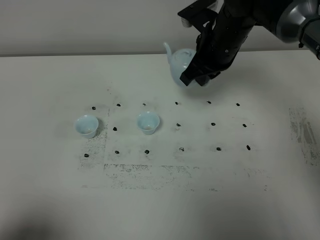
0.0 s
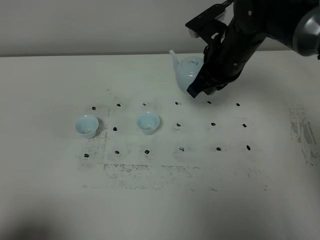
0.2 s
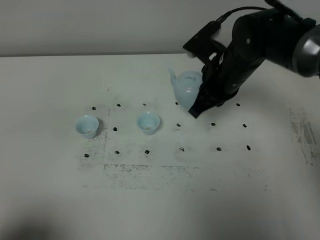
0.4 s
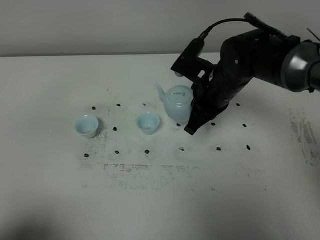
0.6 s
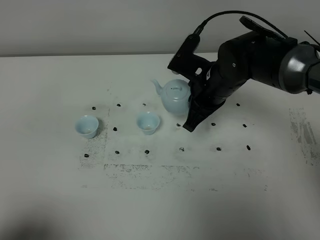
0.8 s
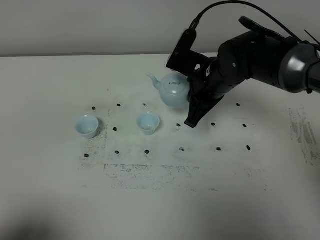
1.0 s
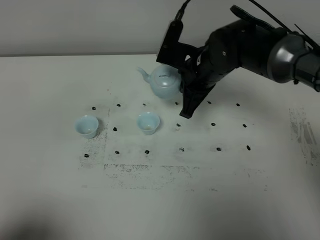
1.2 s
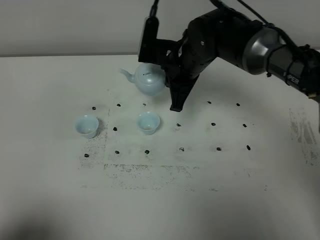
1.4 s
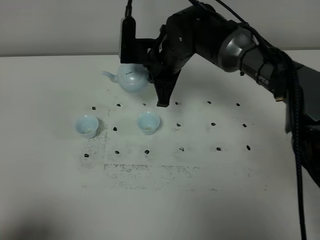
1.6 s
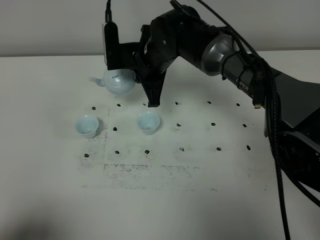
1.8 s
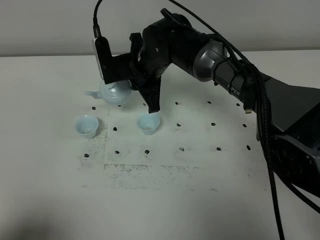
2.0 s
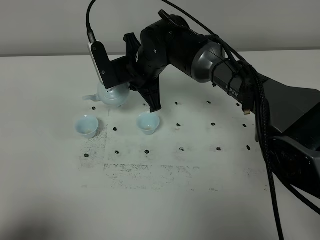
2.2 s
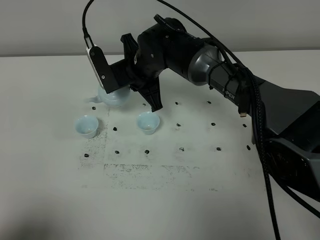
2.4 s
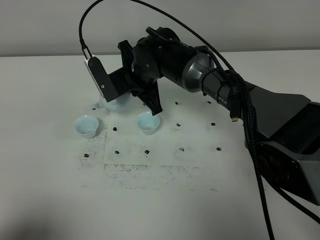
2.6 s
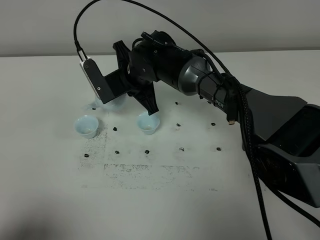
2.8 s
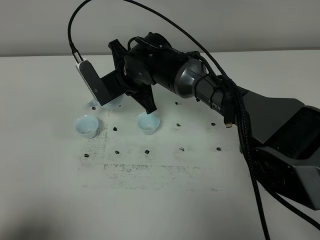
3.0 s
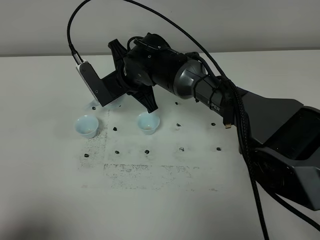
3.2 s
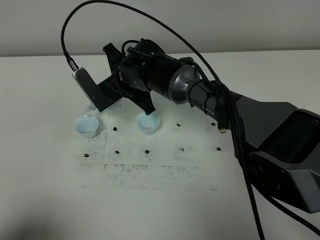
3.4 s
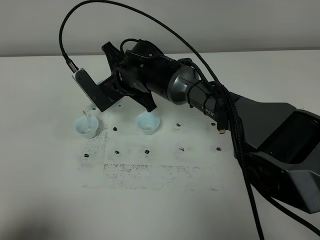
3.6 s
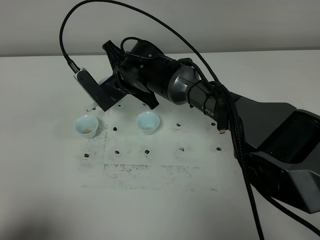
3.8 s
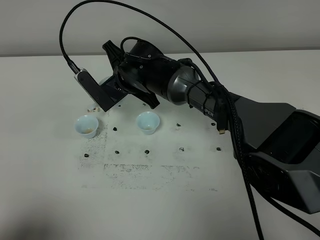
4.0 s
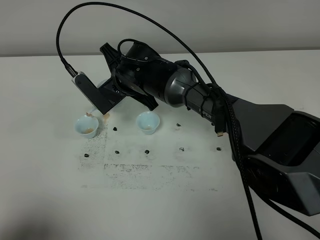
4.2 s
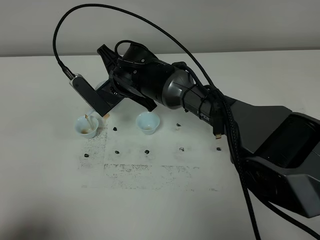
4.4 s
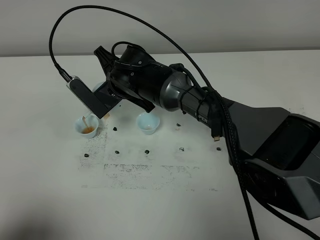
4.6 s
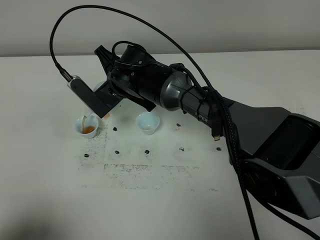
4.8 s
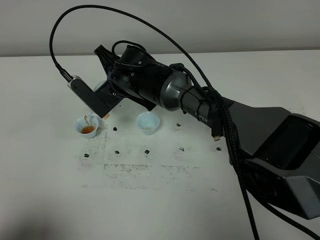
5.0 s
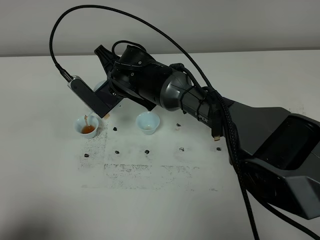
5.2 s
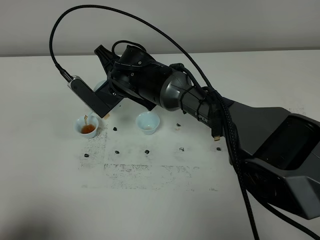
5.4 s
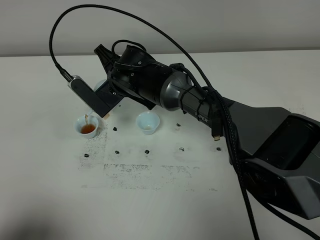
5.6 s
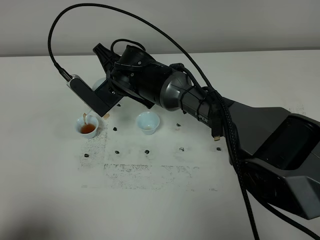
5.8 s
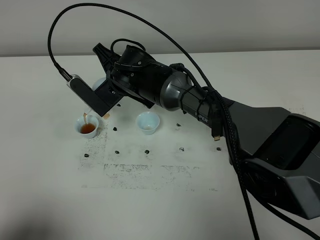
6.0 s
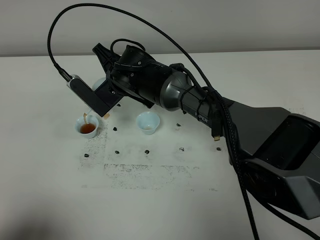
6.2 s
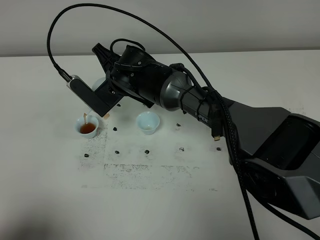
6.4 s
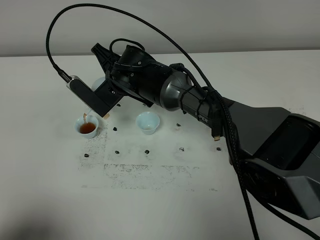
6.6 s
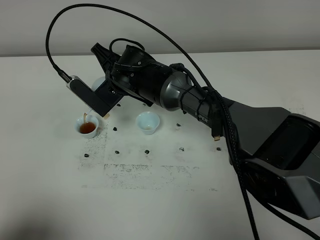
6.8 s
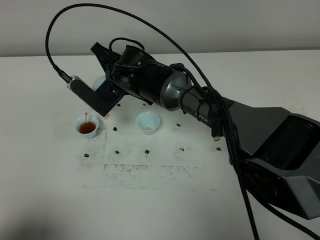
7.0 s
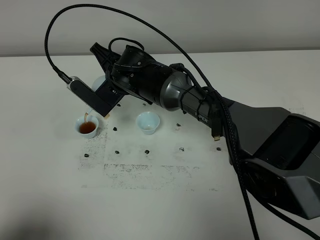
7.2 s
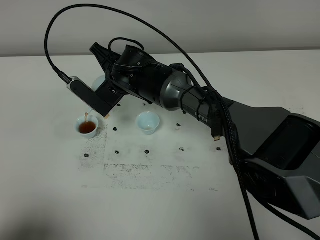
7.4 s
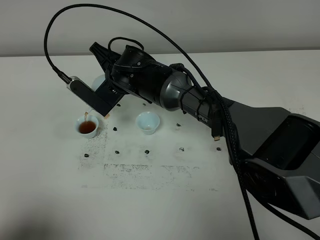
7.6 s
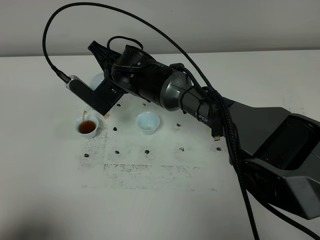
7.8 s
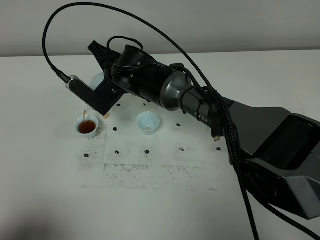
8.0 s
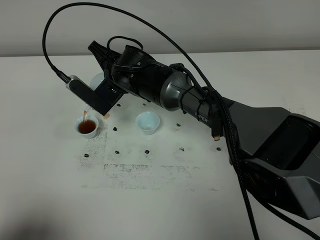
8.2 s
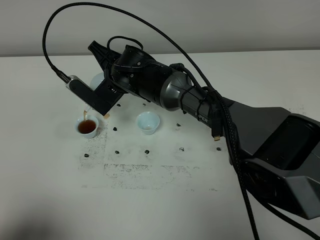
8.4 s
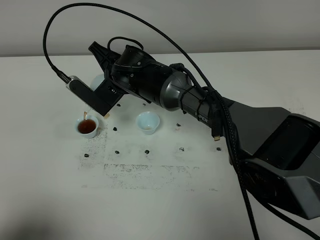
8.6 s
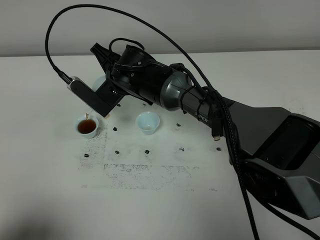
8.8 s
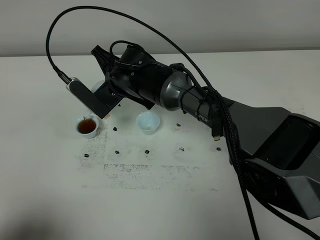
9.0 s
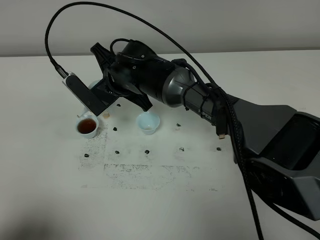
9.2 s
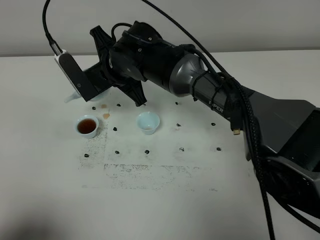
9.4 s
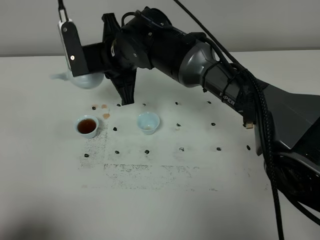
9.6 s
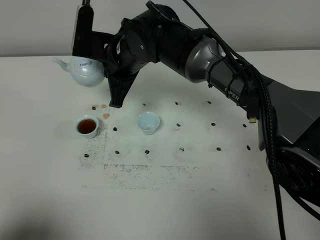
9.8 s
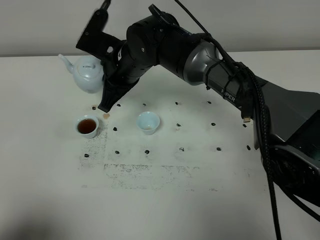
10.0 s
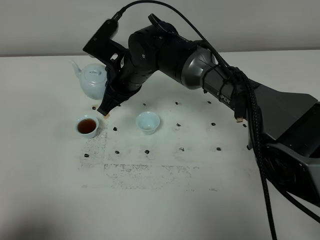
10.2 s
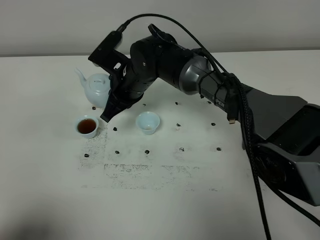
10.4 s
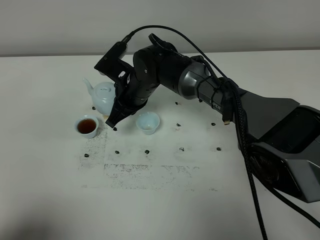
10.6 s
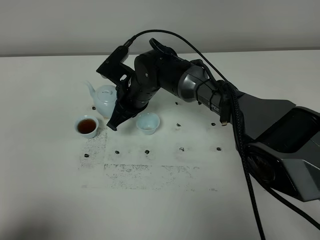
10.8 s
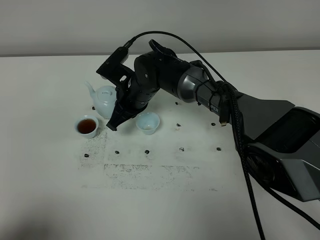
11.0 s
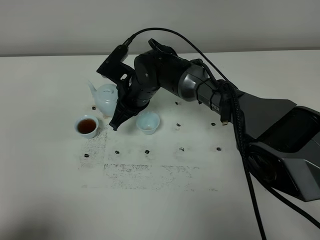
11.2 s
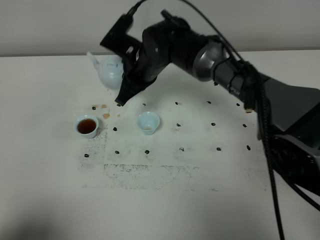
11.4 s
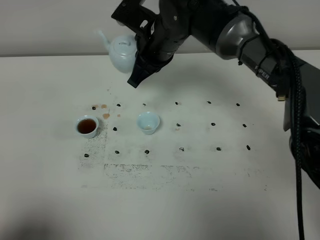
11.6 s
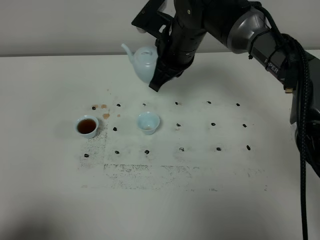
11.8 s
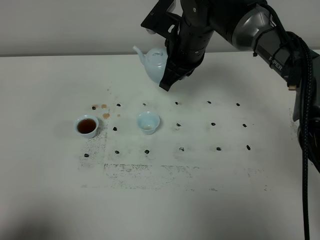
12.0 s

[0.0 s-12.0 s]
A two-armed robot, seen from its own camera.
Task of the whole recording: grasp the blue porcelain teapot and pour the tea into the two blue porcelain teacups one by one, put the blue porcelain teapot back in its original place.
0.0 to 1.6 s: The right gripper goes about 10 cm to the left.
1.6 to 3.0 s: The right gripper goes about 5 cm to the left.
3.0 to 4.4 s: There are only small adjustments of the grippers.
4.4 to 6.0 s: The two grippers keep their place.
6.0 to 9.0 s: The grippers move only a little.
9.0 to 10.4 s: The right gripper moves roughly 5 cm upward and comes back.
10.4 to 12.0 s: The right gripper heads to the right and upward, covering some 15 cm.

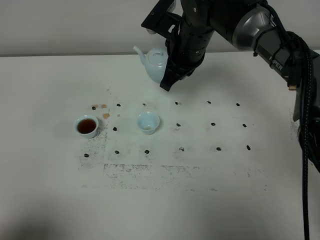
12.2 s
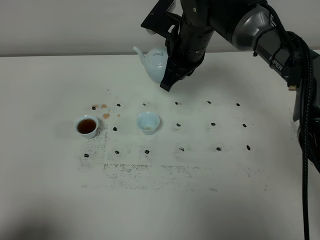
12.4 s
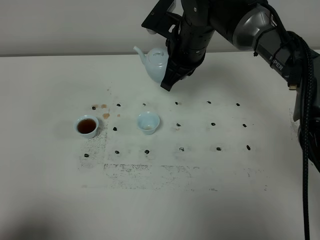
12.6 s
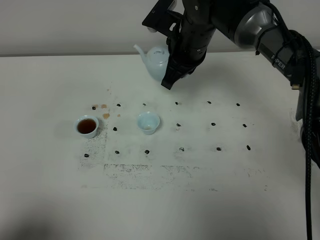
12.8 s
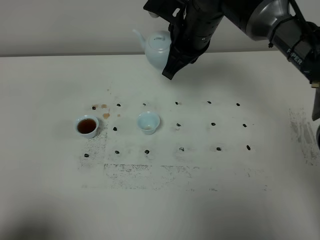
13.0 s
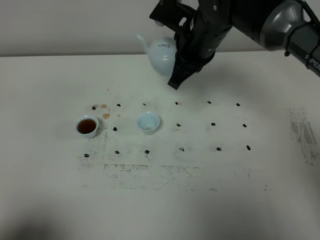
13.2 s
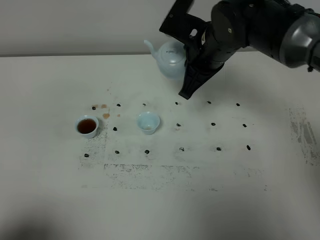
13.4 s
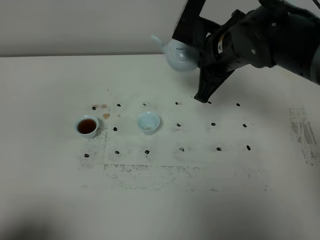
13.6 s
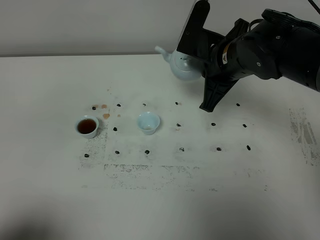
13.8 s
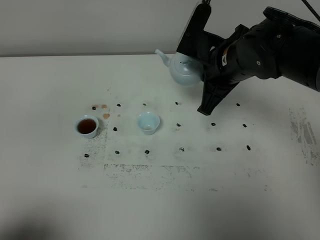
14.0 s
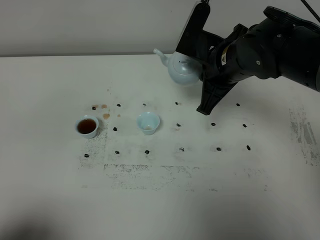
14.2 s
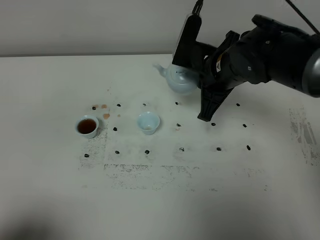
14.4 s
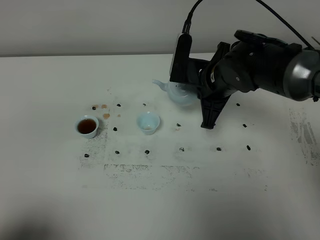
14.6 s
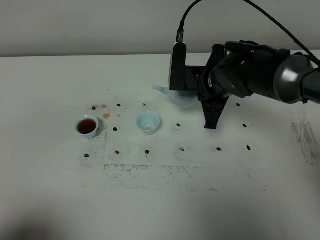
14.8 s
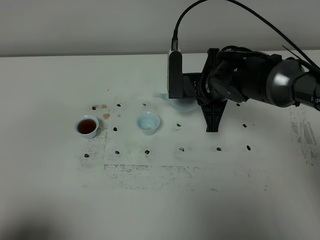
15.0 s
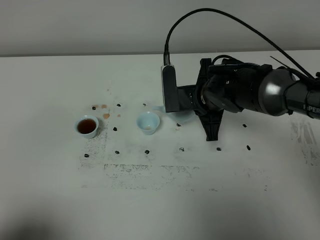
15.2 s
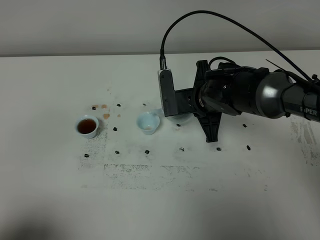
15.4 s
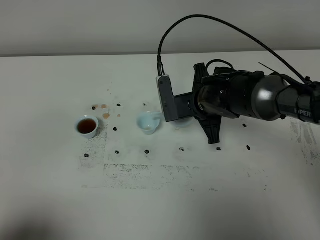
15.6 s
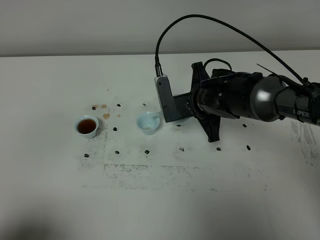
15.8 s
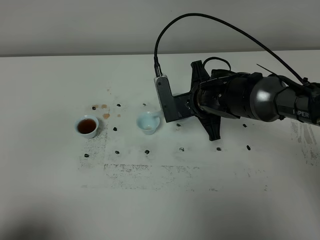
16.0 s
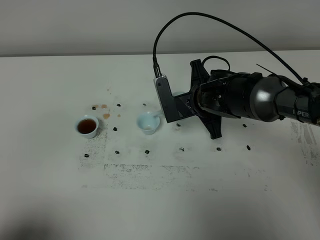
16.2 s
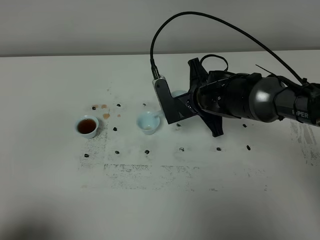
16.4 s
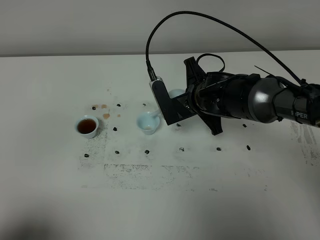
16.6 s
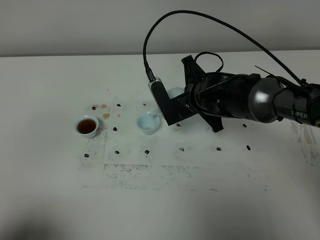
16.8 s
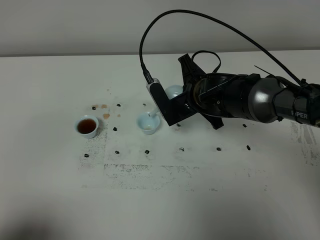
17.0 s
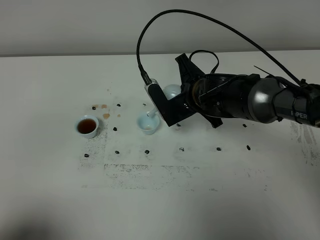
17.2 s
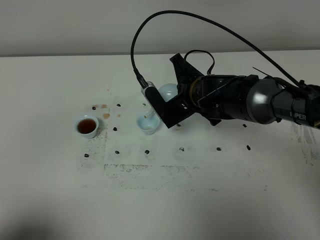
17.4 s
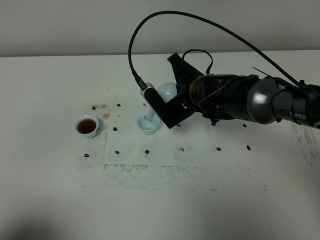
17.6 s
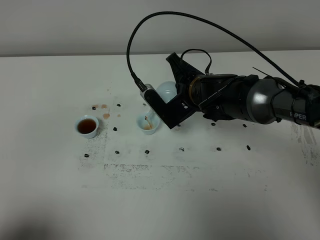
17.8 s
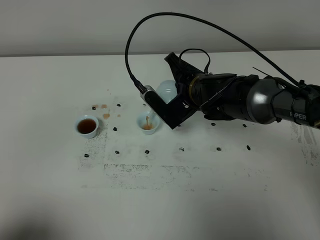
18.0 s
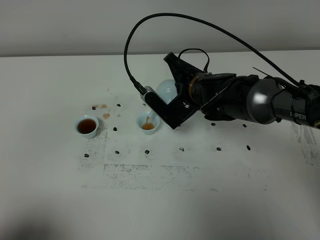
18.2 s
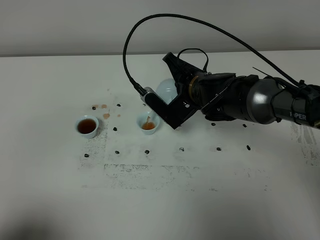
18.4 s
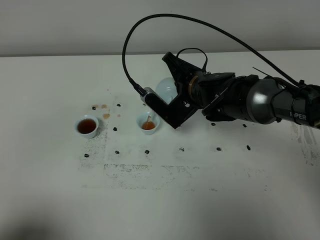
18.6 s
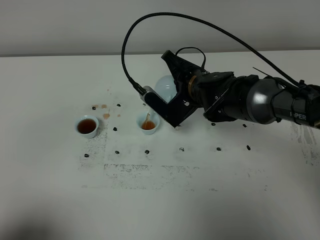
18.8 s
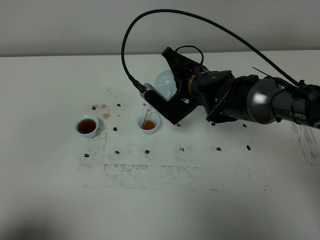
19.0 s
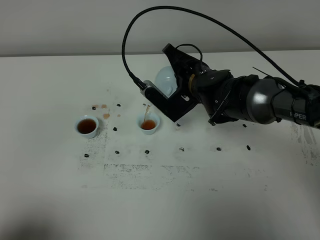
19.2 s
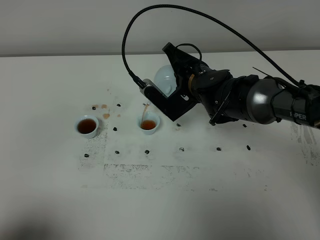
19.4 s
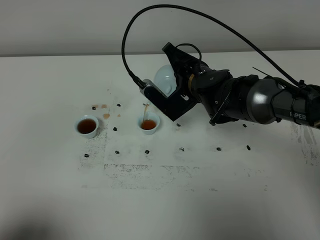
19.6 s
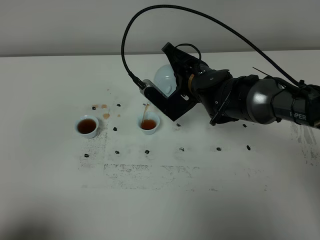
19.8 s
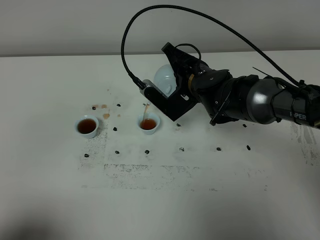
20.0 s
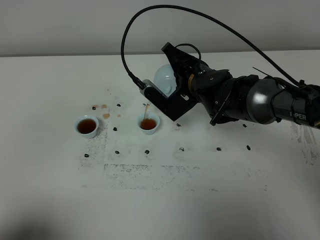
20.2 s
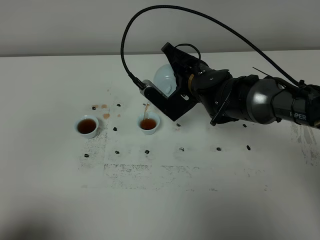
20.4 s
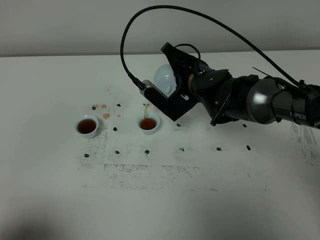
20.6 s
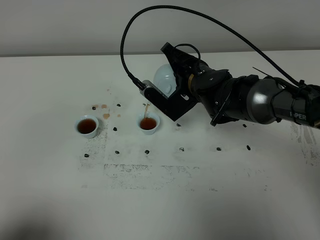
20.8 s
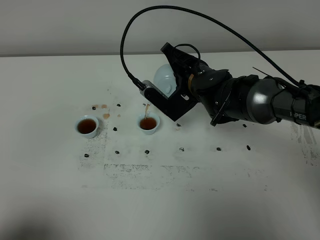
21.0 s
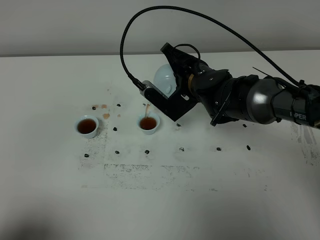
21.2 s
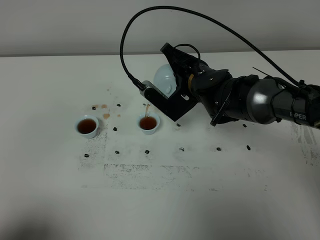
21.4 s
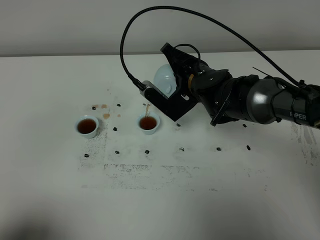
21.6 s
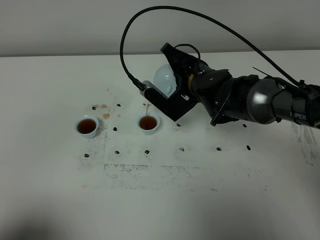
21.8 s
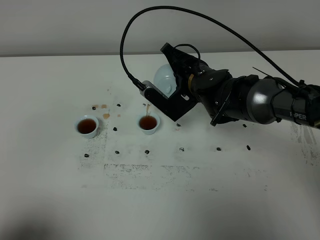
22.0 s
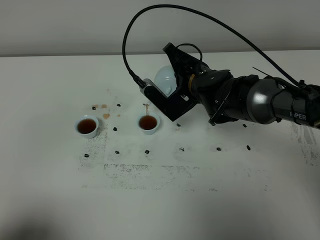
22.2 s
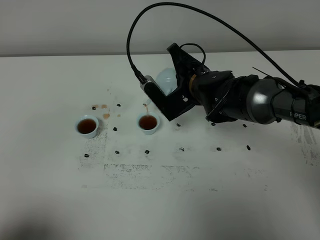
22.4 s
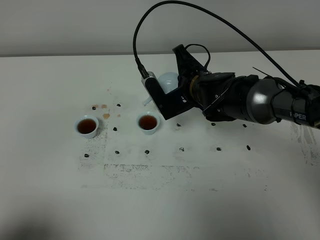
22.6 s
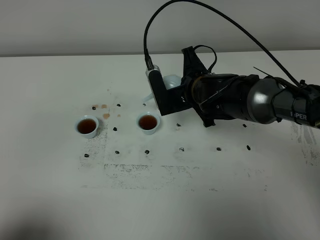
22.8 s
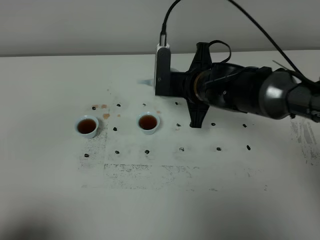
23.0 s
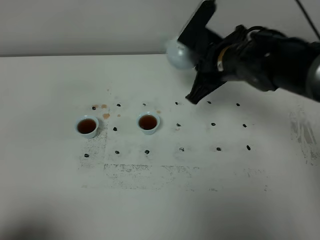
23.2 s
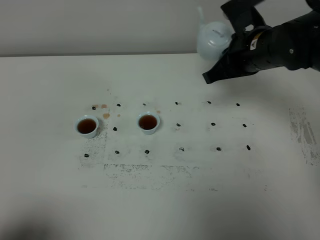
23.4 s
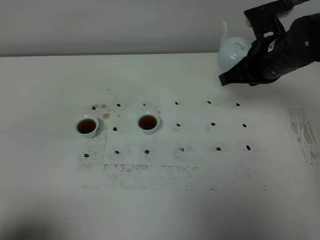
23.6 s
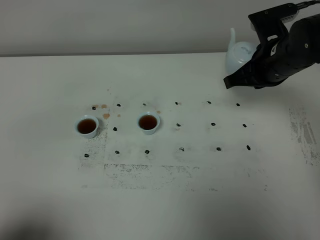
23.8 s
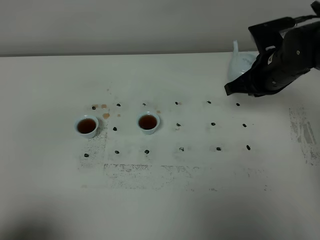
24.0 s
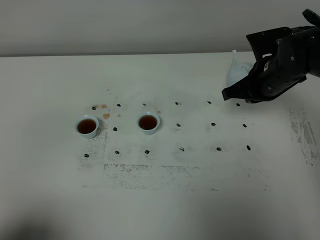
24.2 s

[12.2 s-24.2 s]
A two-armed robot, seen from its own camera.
Task of the whole recording: grasp the blue porcelain teapot and pour the tea into the two blue porcelain teacups one by one, put the blue porcelain teapot back in its original place.
Step, 12.2 to 22.8 s: Pour tea into the teacup with the right gripper.
12.2 to 13.8 s: The right gripper travels backward and to the right by approximately 10 cm.
13.8 to 15.2 s: The right gripper is displaced downward by roughly 10 cm.
18.2 to 19.8 s: There are only small adjustments of the grippers.
19.8 to 21.2 s: Neither gripper changes place.
22.6 to 24.2 s: The right gripper heads to the right, covering approximately 15 cm.
